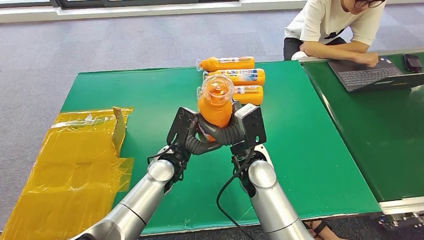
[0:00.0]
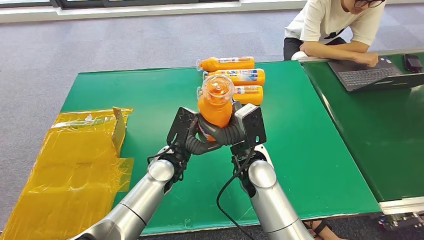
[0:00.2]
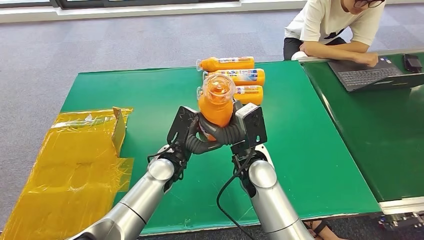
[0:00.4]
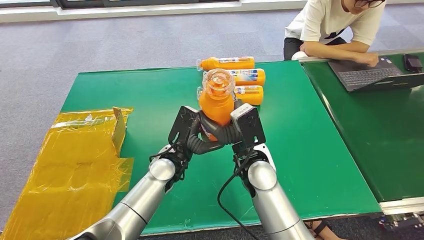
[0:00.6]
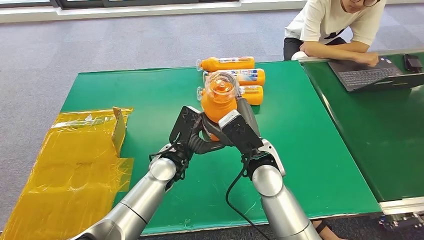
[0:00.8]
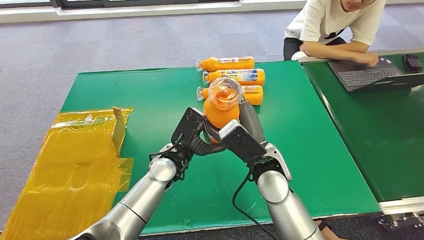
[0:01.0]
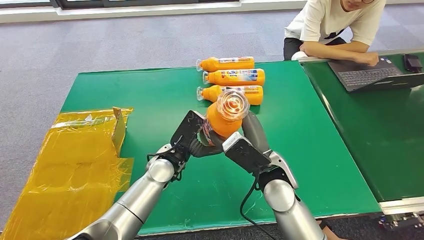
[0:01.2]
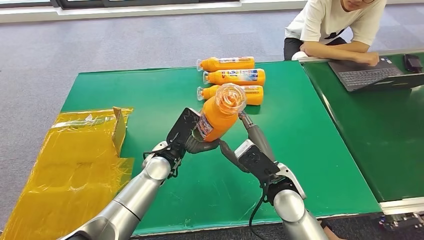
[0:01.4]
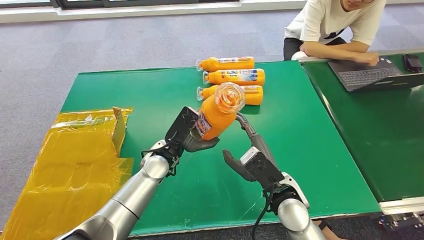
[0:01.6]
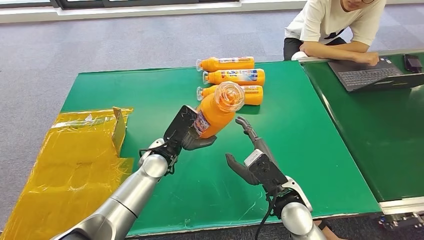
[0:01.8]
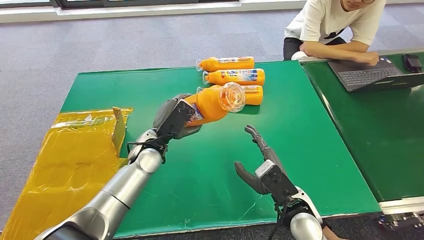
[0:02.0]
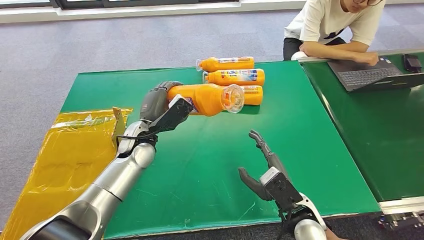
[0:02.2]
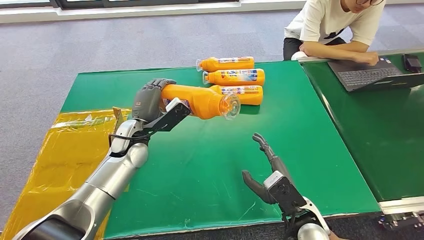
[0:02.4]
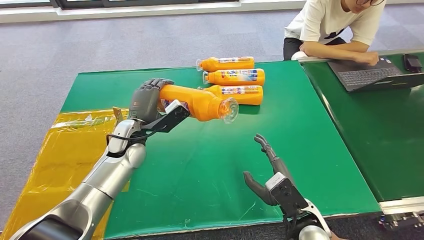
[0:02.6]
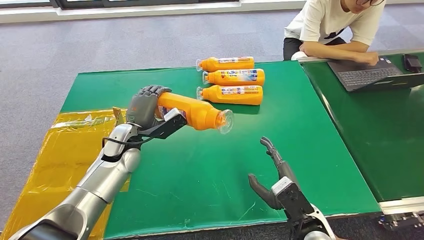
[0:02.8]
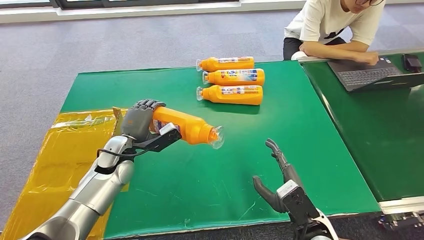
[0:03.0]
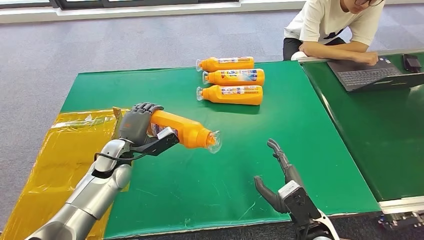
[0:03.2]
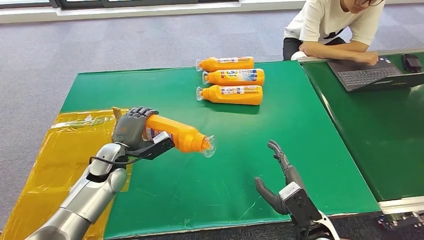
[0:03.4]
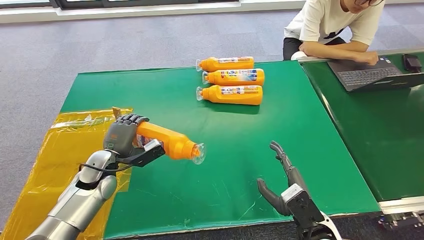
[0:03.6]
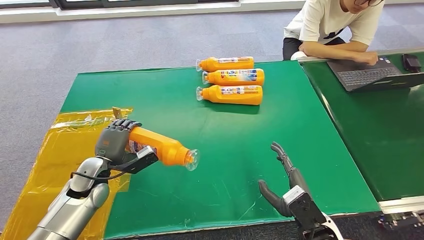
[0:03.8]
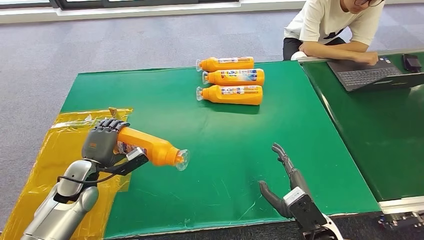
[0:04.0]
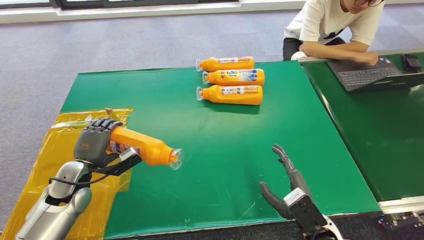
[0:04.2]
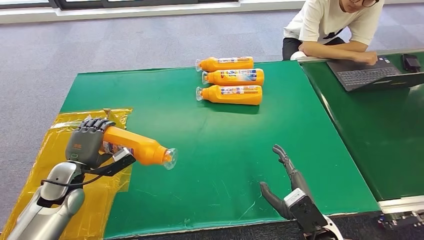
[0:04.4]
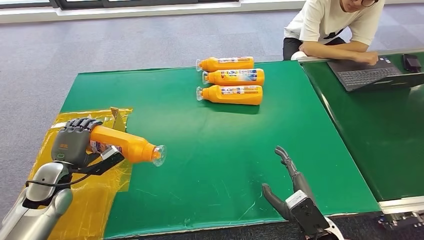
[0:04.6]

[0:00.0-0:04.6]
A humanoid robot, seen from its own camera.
Step, 0:00.0 to 0:04.6: Turn the bottle to the front side.
0:00.0 to 0:01.6: The right hand goes approximately 10 cm to the right and backward.
0:01.6 to 0:03.0: The left hand travels to the left by about 10 cm. Meanwhile the right hand heads backward and to the right, covering approximately 10 cm.
0:03.0 to 0:04.6: The left hand moves to the left, about 15 cm.
